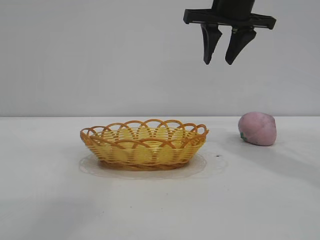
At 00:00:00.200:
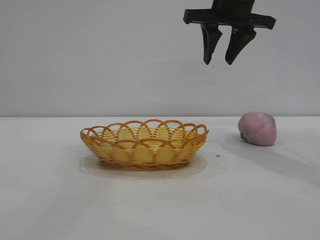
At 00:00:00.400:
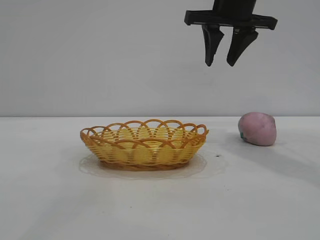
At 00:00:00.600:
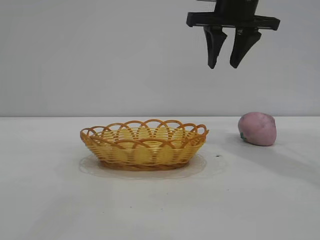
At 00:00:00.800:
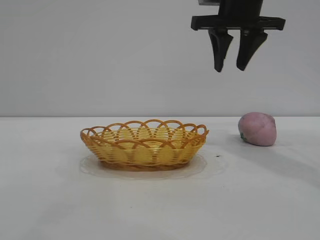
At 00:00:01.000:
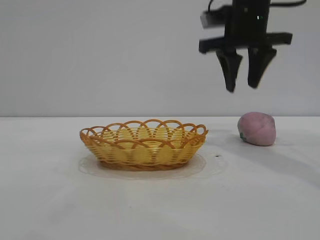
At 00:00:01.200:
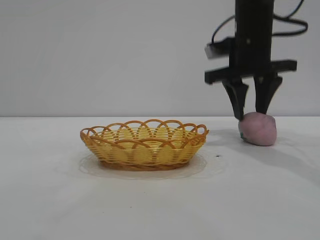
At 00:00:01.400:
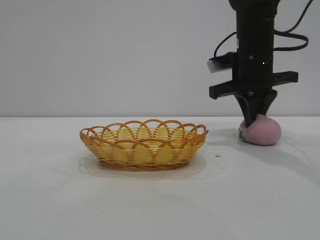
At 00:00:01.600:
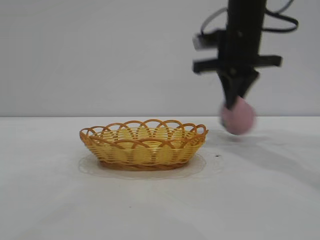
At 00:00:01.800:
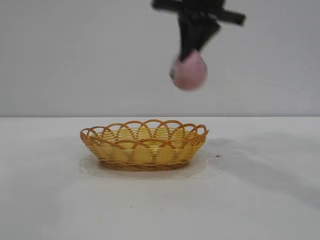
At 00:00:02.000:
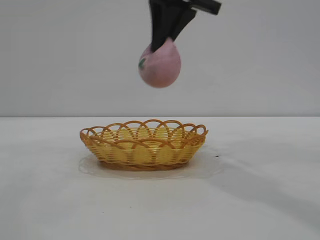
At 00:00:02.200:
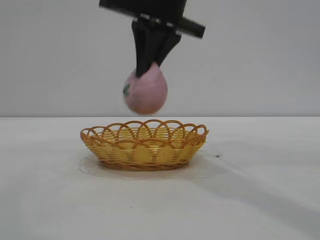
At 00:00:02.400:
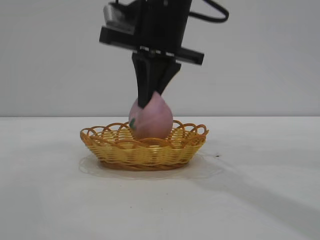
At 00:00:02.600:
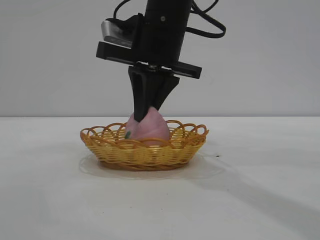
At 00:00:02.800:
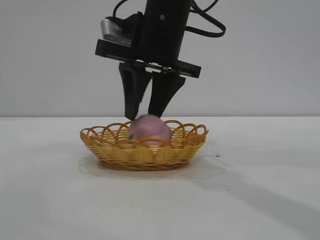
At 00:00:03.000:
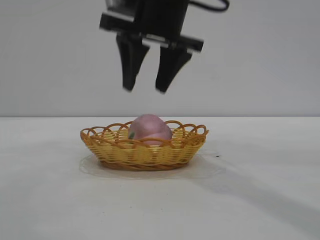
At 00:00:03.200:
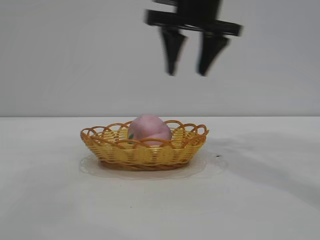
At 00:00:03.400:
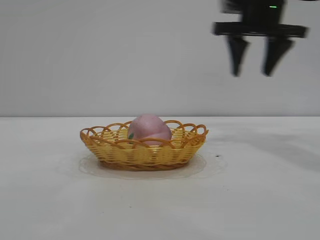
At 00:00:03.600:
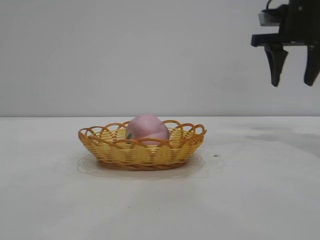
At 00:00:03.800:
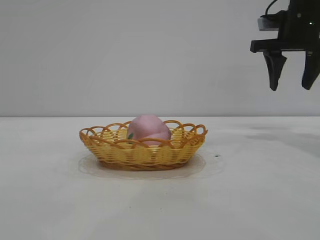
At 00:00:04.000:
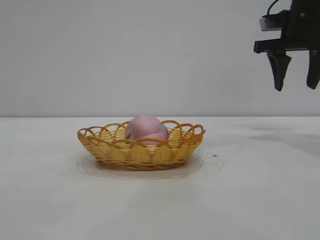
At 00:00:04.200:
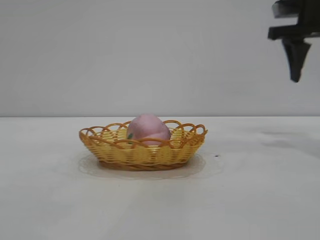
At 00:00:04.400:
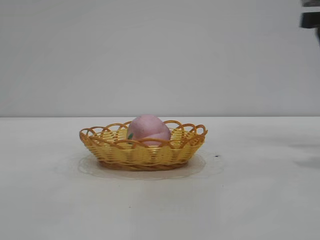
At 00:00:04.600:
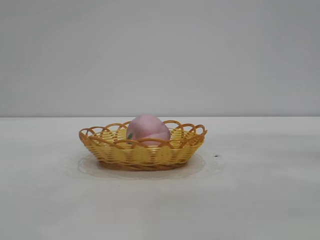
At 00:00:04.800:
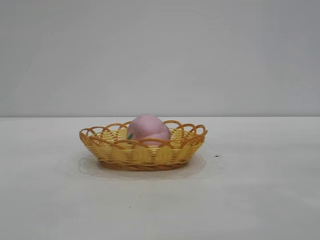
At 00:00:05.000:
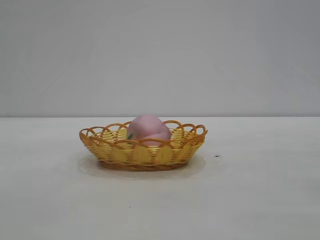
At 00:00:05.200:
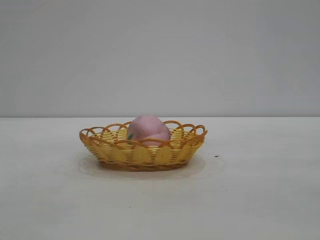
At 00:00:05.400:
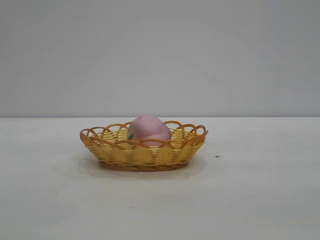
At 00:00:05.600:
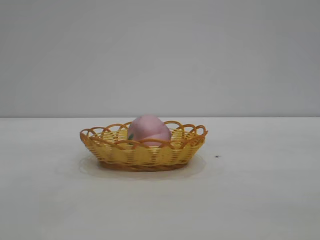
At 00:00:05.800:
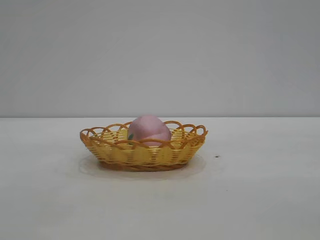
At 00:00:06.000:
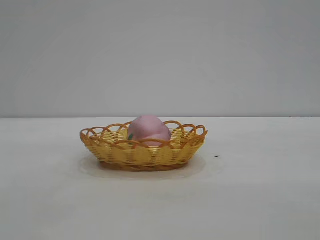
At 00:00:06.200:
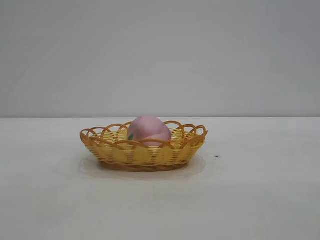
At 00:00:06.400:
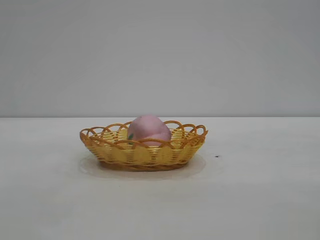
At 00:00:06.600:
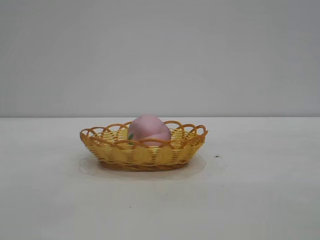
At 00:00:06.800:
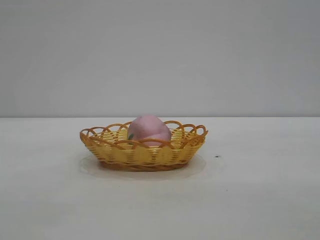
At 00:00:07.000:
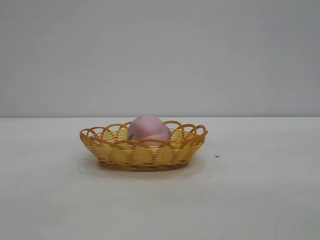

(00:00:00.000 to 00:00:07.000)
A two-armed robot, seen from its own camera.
Task of the whole recording: pick up the peach and put it into the basket.
Step, 00:00:00.000 - 00:00:01.600: Pick up the peach.
Step, 00:00:01.800 - 00:00:03.000: place the peach into the basket.
